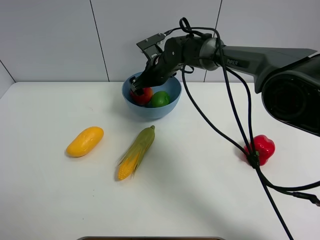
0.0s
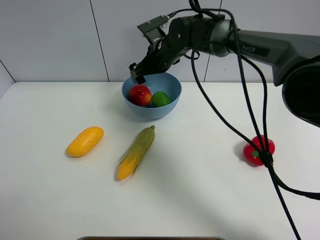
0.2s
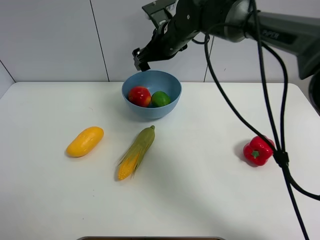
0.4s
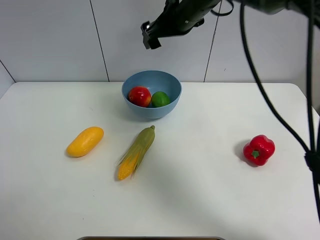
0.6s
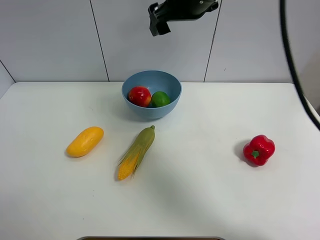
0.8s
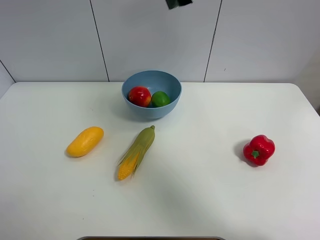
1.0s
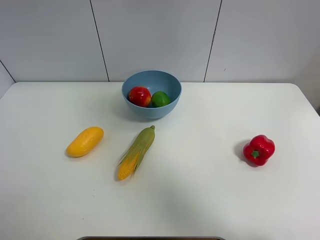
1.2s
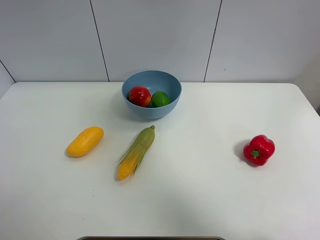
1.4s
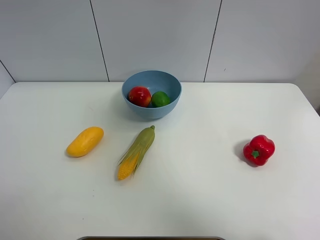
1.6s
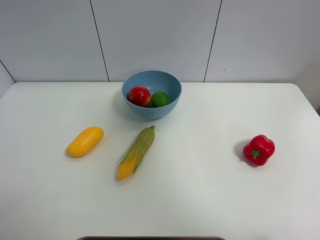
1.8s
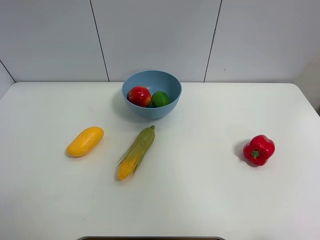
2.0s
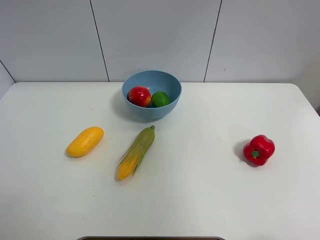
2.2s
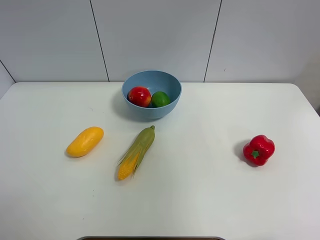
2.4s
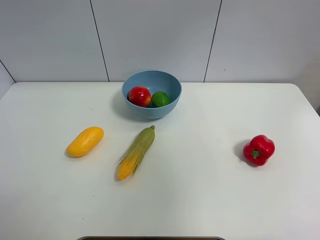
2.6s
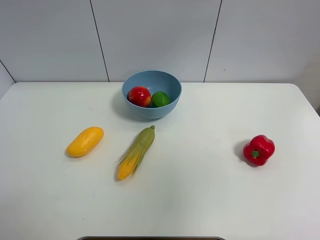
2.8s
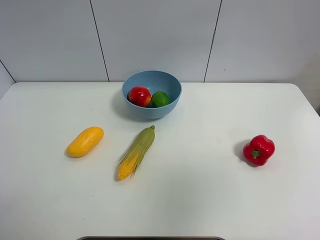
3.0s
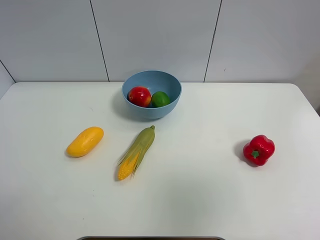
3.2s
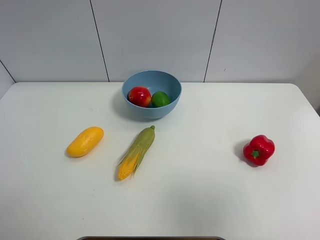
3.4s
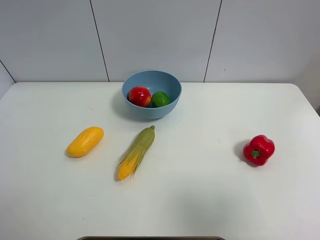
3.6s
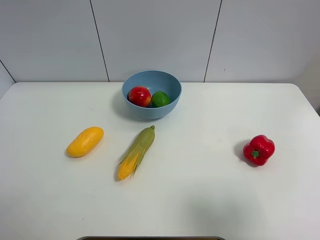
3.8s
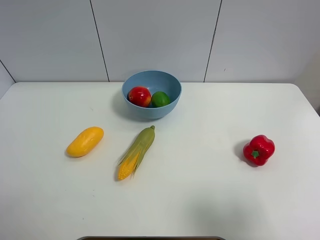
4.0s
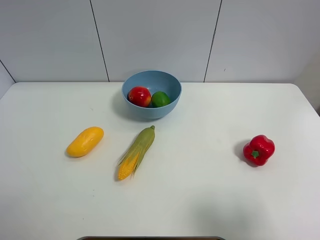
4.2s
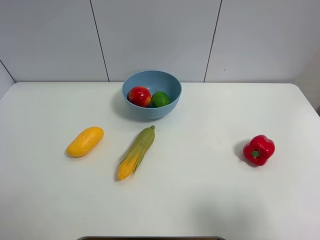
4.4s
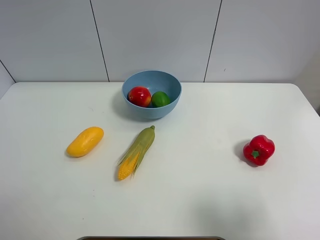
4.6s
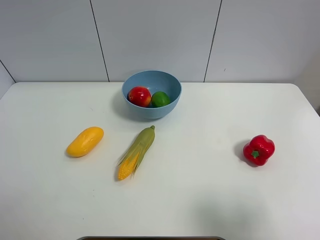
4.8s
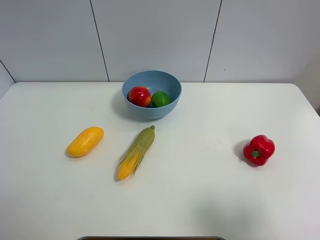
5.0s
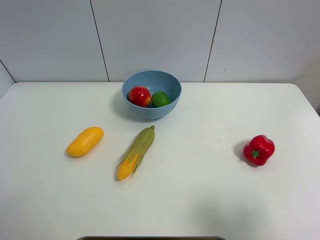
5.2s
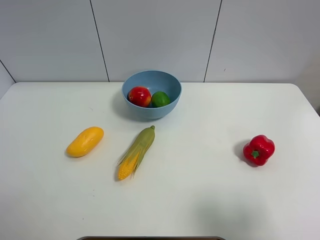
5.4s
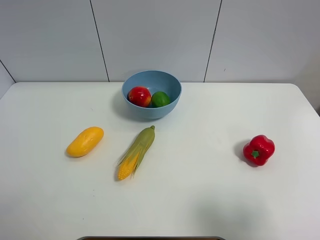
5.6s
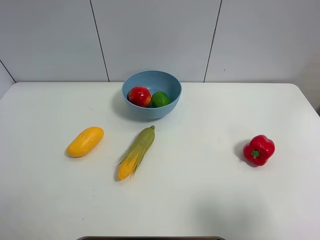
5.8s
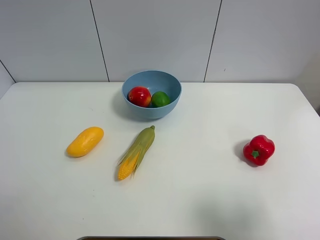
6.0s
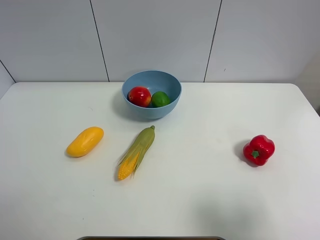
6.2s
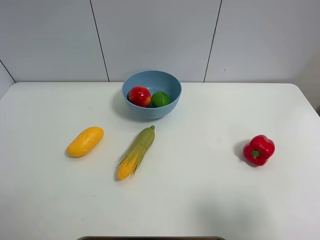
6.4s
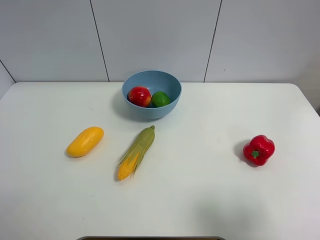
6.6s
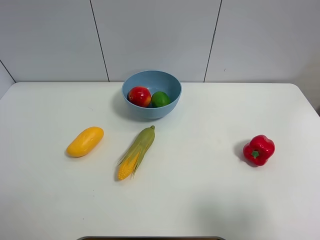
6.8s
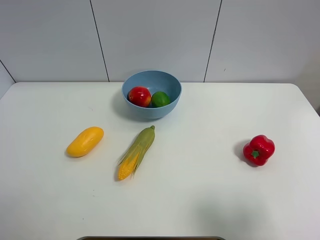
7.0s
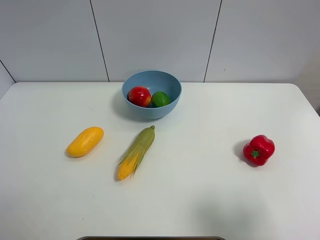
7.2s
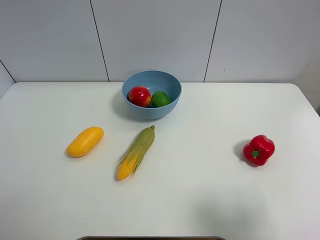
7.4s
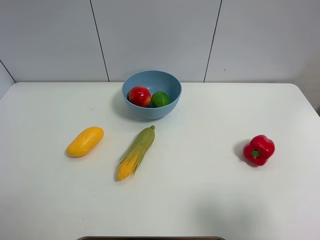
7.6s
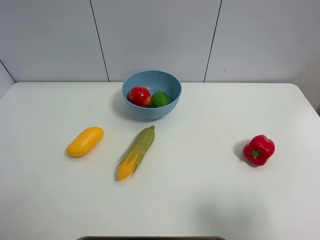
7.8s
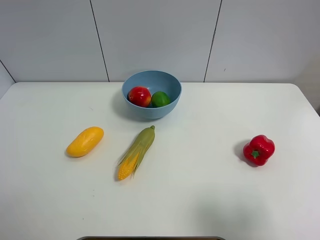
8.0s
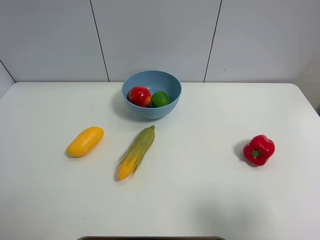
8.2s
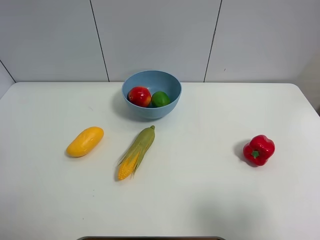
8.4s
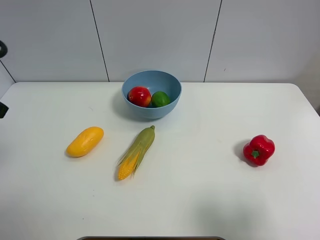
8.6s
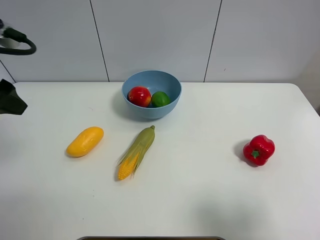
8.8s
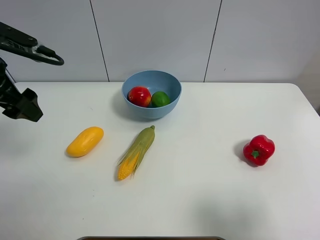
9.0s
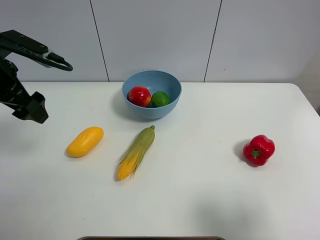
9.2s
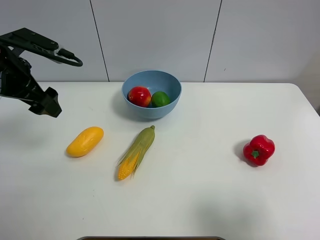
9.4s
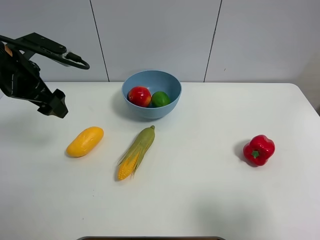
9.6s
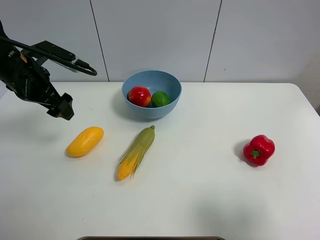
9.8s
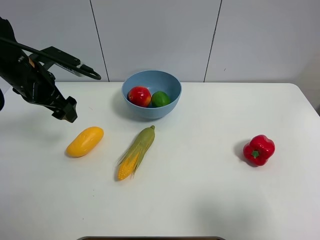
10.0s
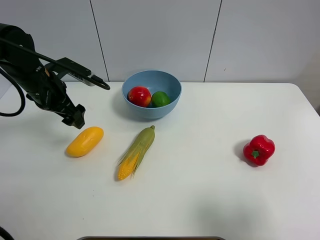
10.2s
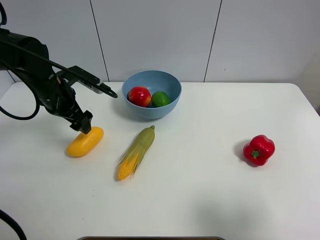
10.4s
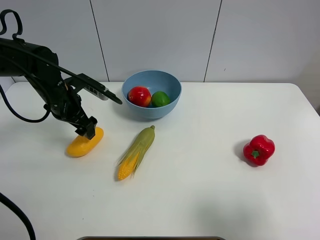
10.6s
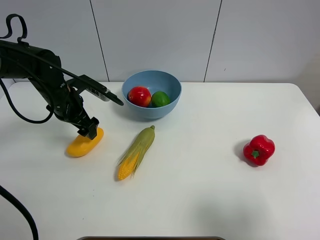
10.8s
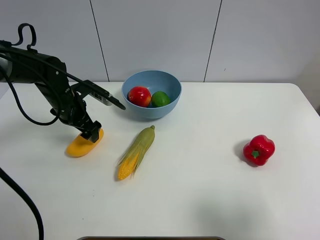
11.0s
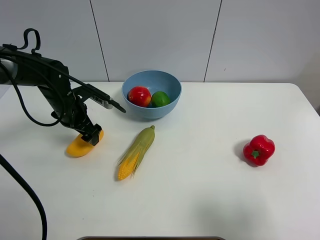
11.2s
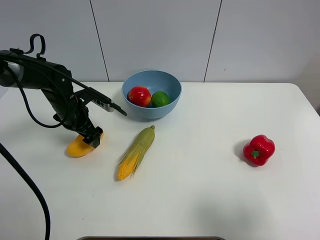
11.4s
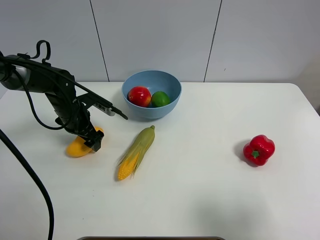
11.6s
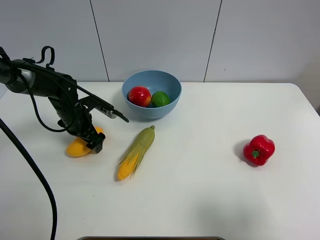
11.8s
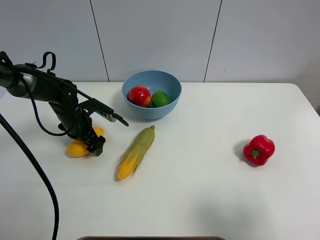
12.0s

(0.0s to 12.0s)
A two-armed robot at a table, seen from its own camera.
Task of the whole recording: Put the three fruits on the table into a bowl.
0.0s - 1.6s: The right gripper travels upward, backward and to the right by roughly 50 cm.
1.6s - 3.0s: The right gripper goes approximately 25 cm backward and to the right.
3.0s - 4.4s: The right gripper shifts roughly 15 cm downward.
4.4s - 6.0s: The two grippers keep their place.
7.6s - 9.0s: The left gripper shifts about 25 cm forward.
9.0s - 10.4s: The left gripper moves downward, forward and to the right, about 15 cm.
10.4s - 12.0s: The left gripper goes about 10 cm downward.

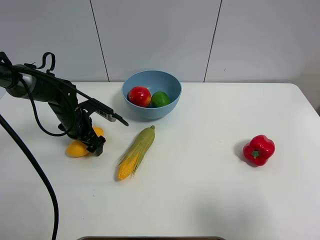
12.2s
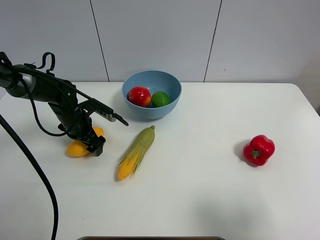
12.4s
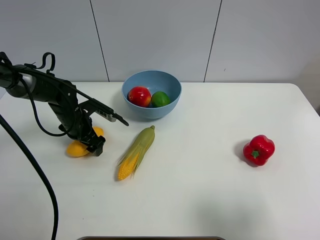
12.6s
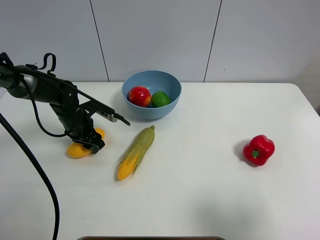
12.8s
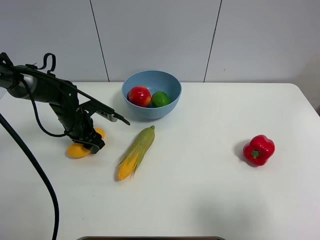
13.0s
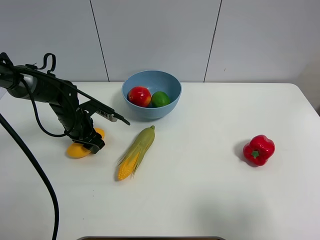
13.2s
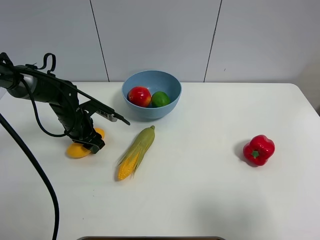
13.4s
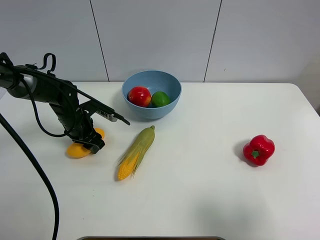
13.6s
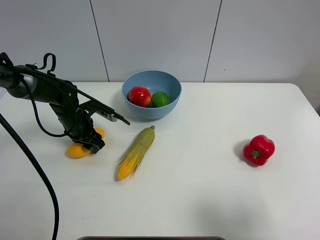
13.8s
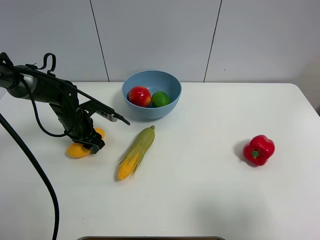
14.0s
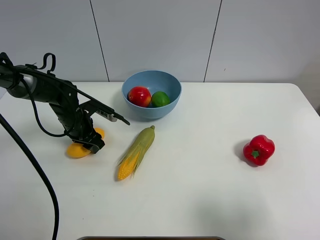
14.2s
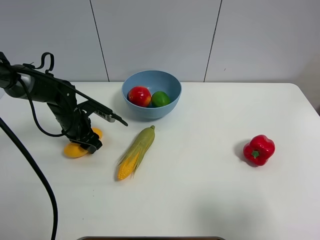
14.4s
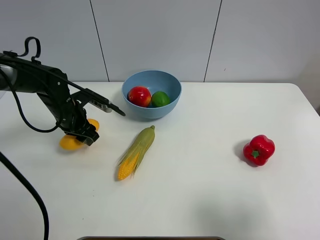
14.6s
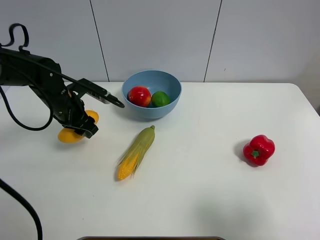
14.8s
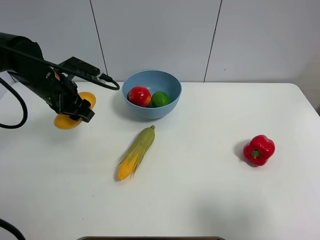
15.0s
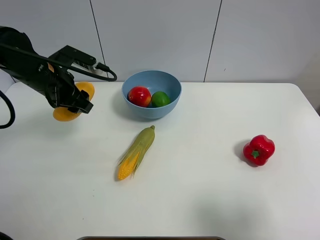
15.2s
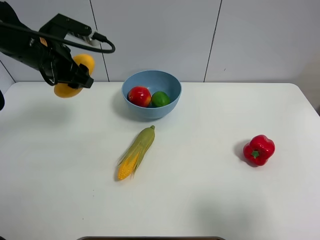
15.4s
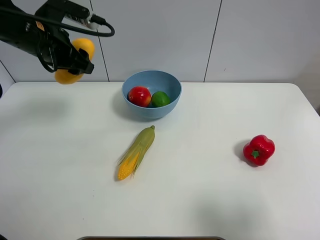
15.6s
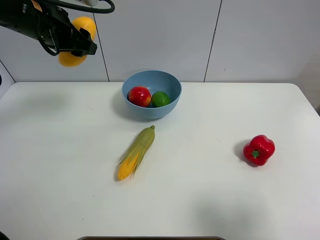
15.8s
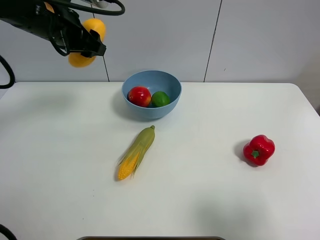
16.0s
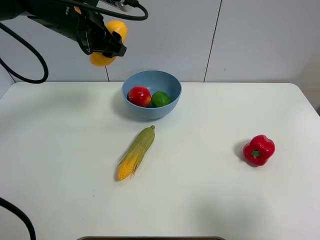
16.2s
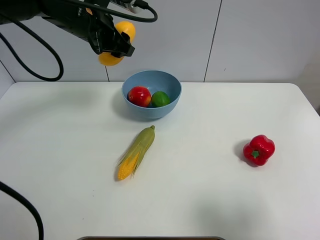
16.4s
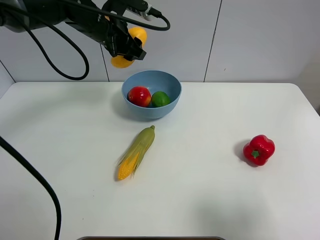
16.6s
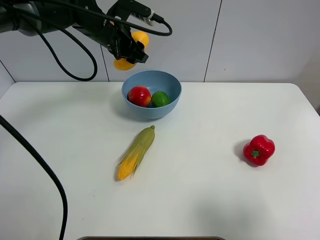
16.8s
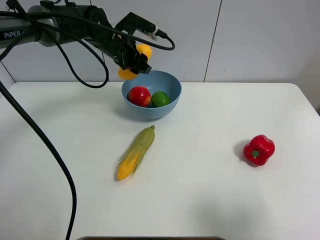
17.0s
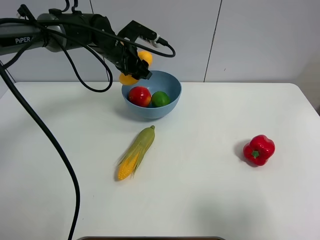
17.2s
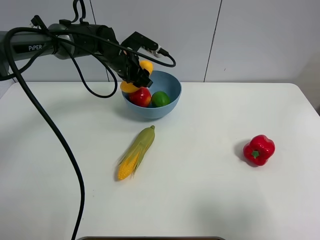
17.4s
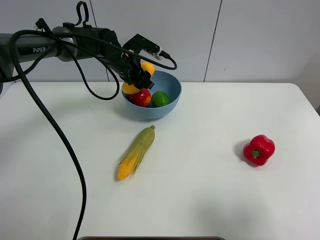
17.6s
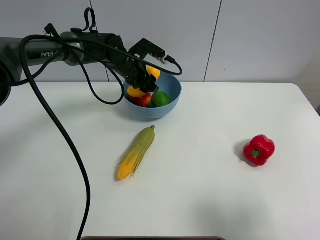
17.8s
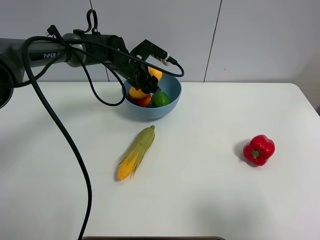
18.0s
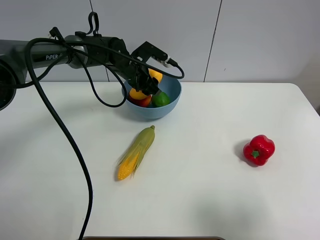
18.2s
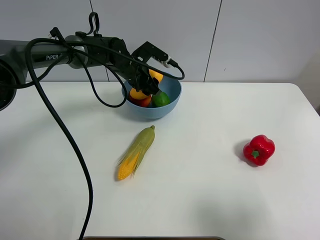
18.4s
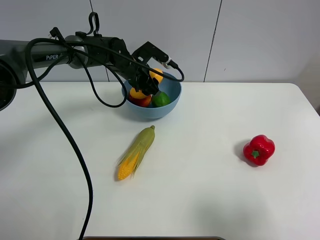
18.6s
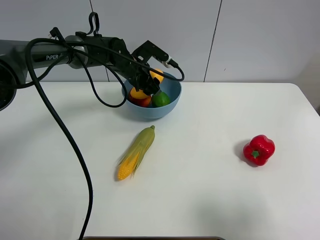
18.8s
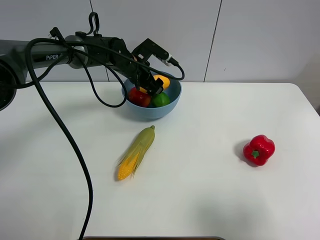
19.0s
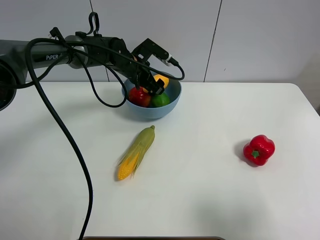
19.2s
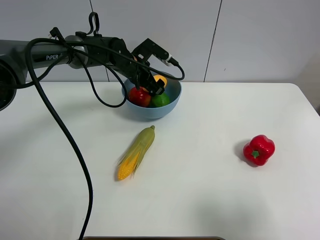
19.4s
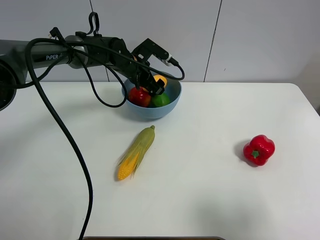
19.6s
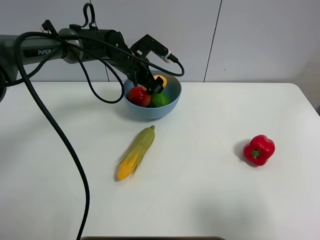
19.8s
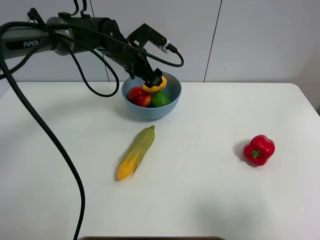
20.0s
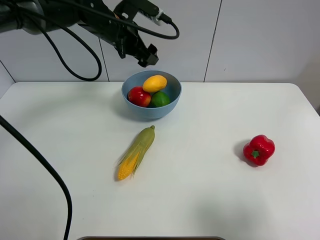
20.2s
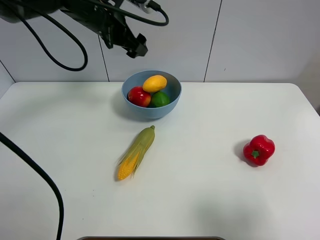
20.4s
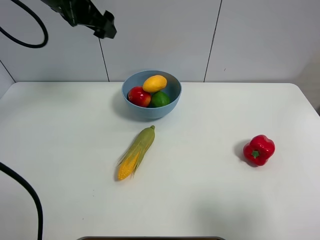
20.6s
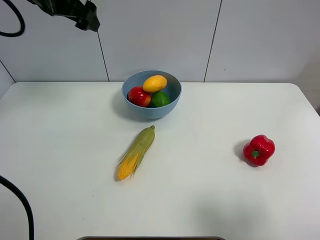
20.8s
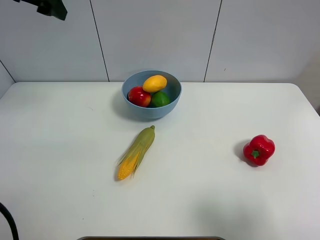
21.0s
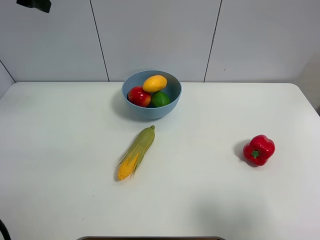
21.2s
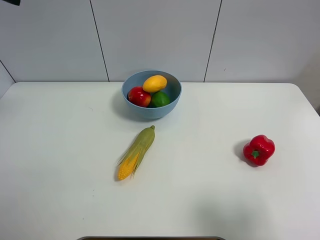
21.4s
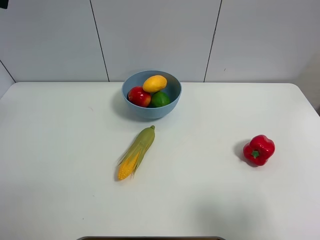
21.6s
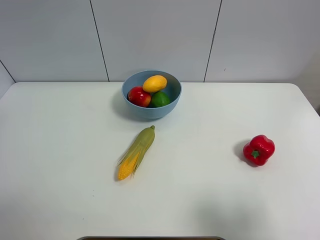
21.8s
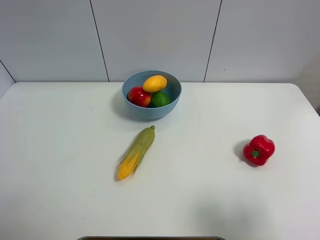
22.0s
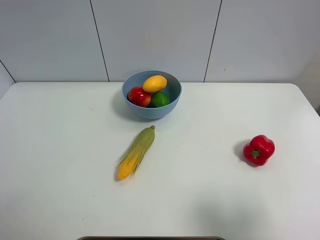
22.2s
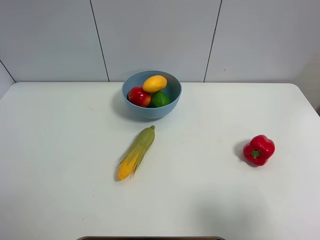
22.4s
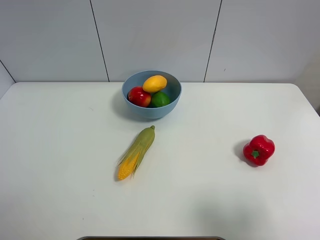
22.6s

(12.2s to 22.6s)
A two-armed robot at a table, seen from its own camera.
Task of the whole recording: Put the three fruits on the table into a bowl.
Step, 13.0s - 19.8s: Place the mango in the blue bowl with left gripper.
12.2s - 13.6s: The left gripper closes.
13.6s - 15.2s: The left gripper shifts about 15 cm upward.
15.2s - 16.6s: The left gripper is displaced to the right and forward by about 15 cm.
16.6s - 18.2s: The left gripper heads downward, covering about 10 cm.
18.2s - 19.6s: The left gripper opens.
19.6s - 21.2s: The left gripper heads upward, to the left and backward, covering about 35 cm.
21.2s - 22.6s: The left gripper moves backward, about 30 cm.
